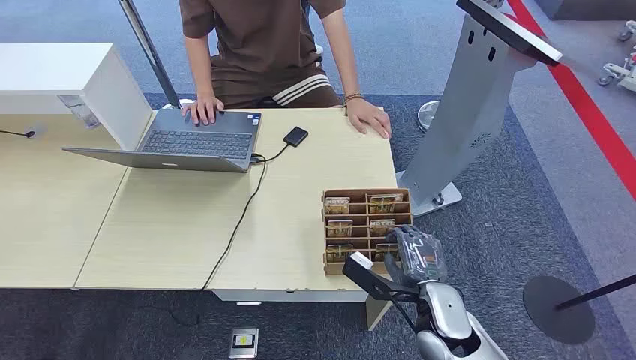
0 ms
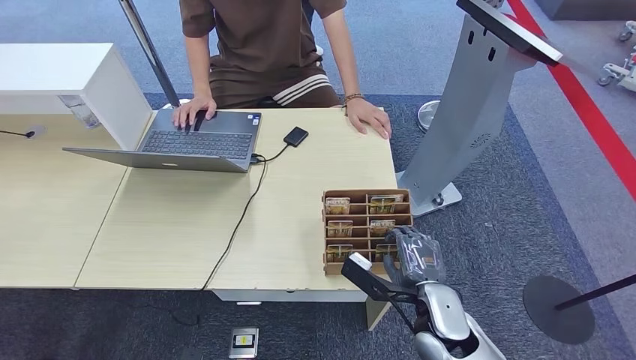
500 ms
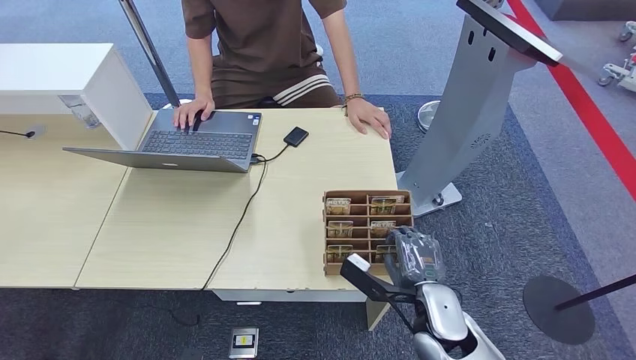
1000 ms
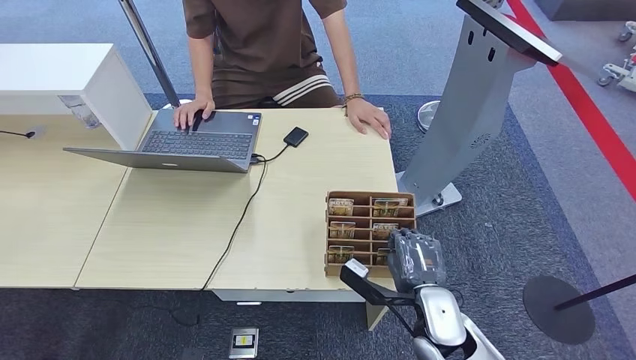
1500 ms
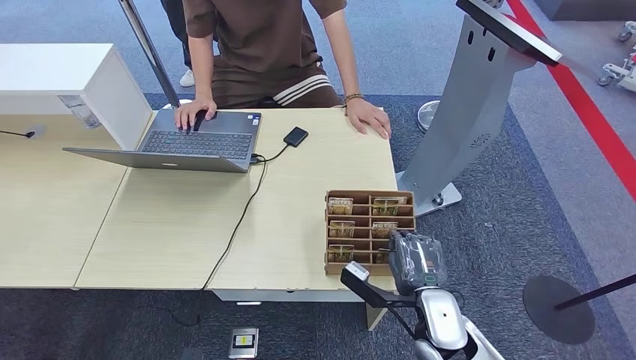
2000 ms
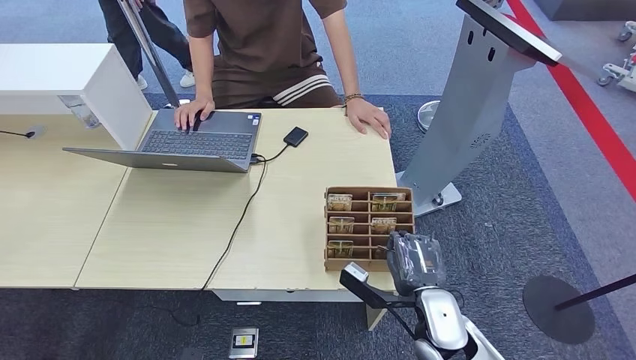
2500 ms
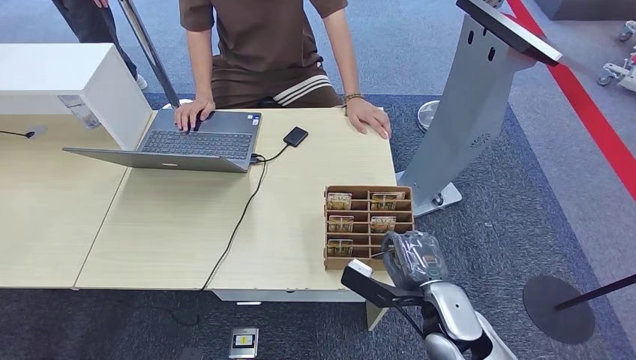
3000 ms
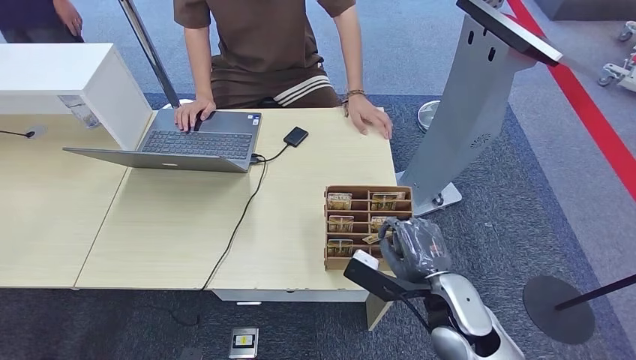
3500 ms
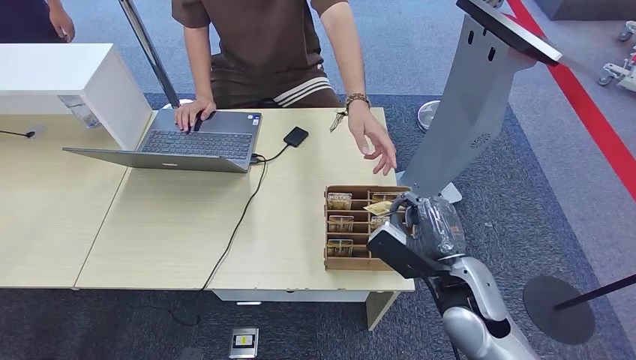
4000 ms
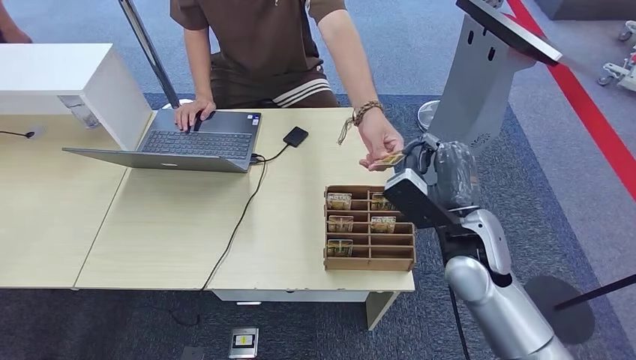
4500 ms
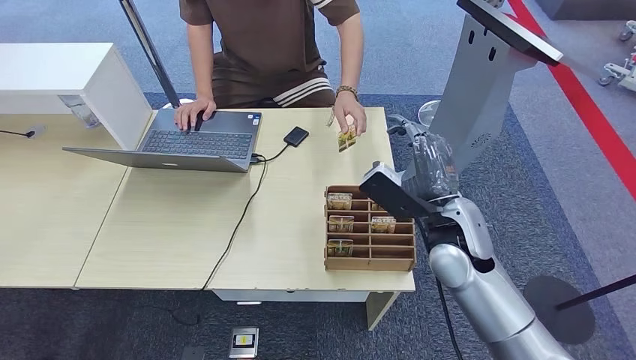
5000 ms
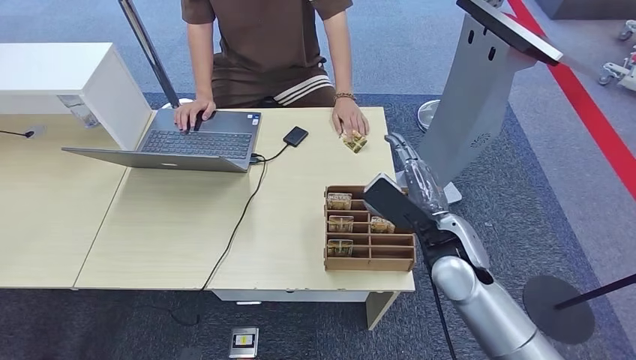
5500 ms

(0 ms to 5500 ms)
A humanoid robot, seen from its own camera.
Step, 0 ms - 3000 ms: Pick up the key card from the card box.
Step, 4000 ms - 5000 ms: Hand the key card to the target.
2000 ms - 3500 ms: The right hand shifts some 5 cm upward.
3500 ms - 5500 ms: The right hand shifts approximately 10 cm forward and upward.

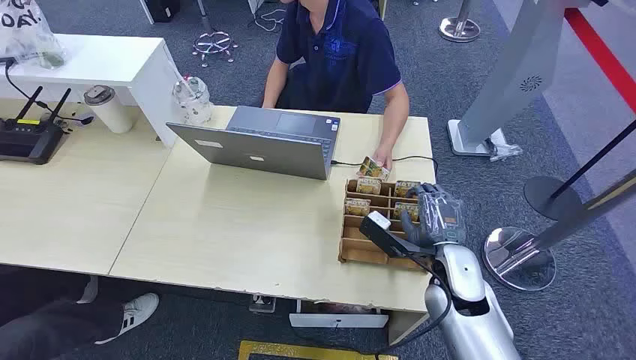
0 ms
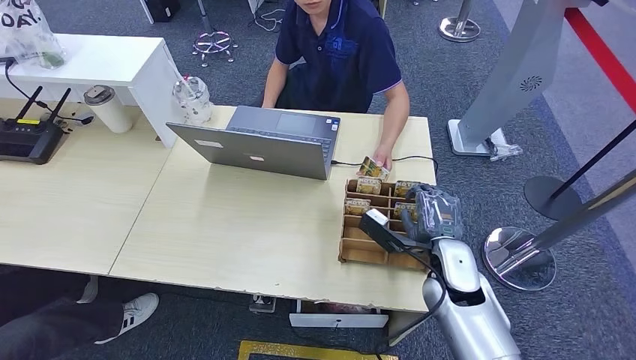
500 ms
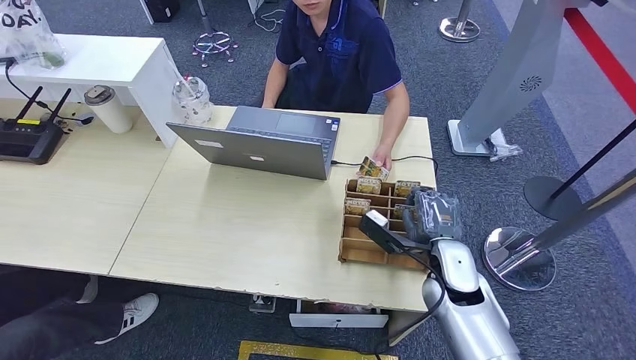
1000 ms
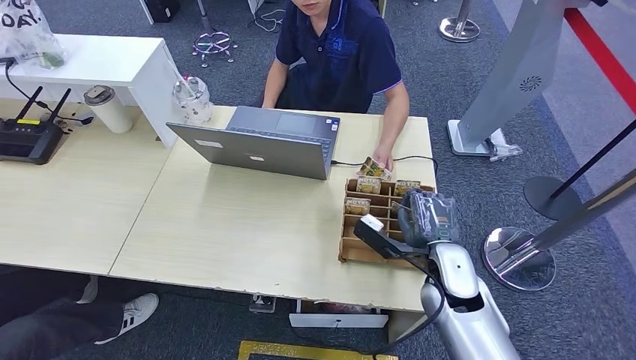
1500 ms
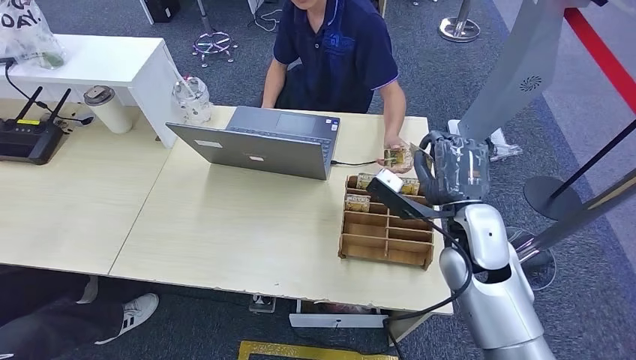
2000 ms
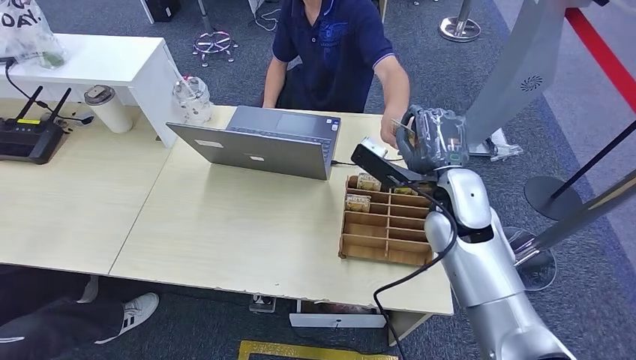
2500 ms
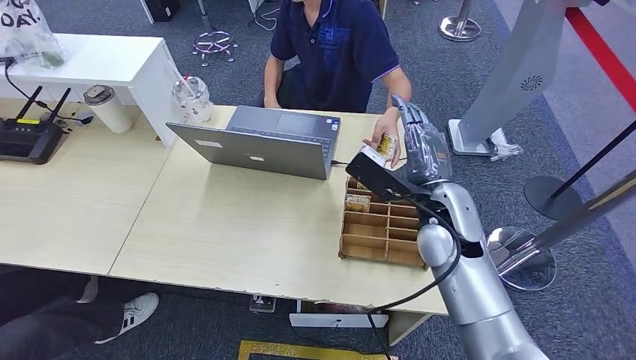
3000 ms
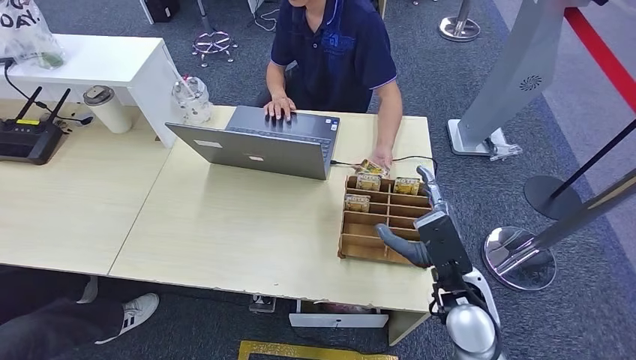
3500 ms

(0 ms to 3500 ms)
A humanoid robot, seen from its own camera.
Step, 0 ms - 1500 ms: Pick up the key card from the card box.
Step, 2000 ms - 3500 ms: Hand the key card to the target.
2000 ms - 3500 ms: The right hand heads backward and downward, covering roughly 10 cm.
